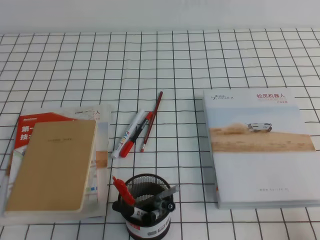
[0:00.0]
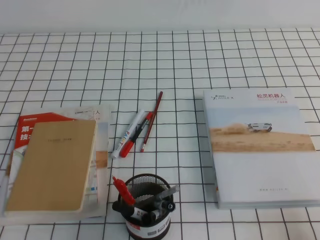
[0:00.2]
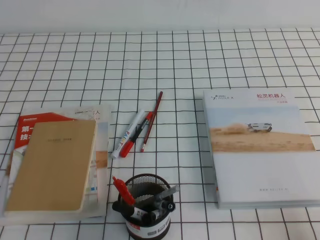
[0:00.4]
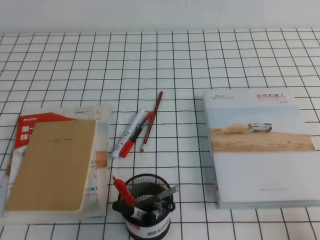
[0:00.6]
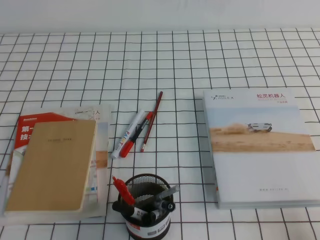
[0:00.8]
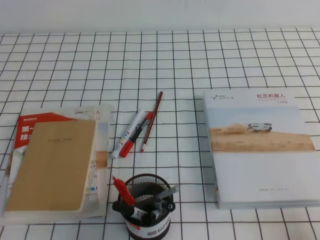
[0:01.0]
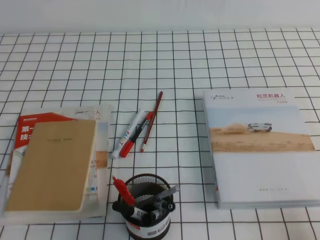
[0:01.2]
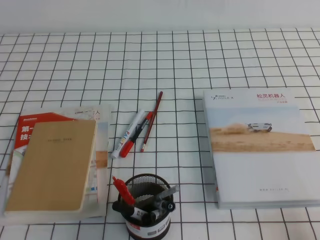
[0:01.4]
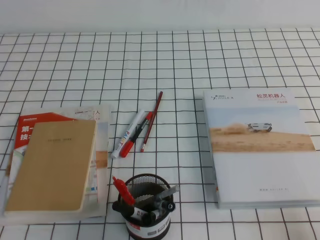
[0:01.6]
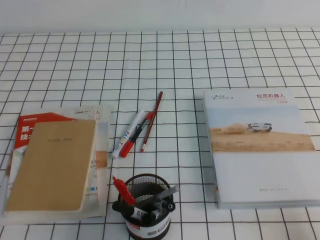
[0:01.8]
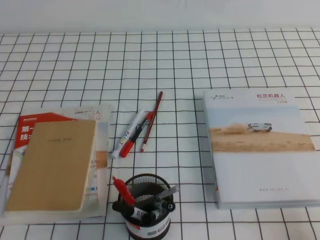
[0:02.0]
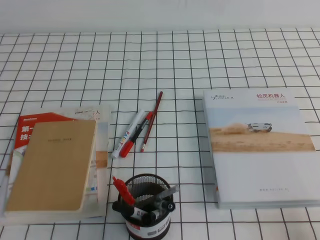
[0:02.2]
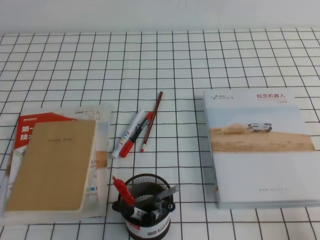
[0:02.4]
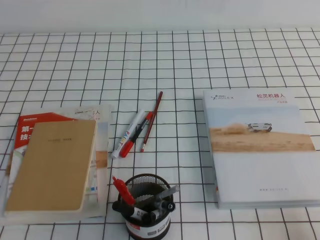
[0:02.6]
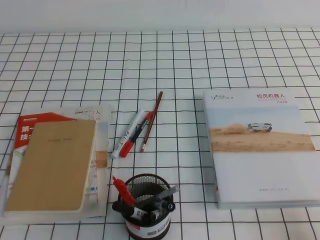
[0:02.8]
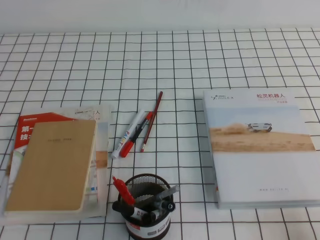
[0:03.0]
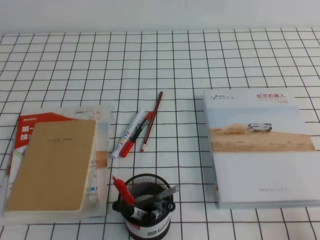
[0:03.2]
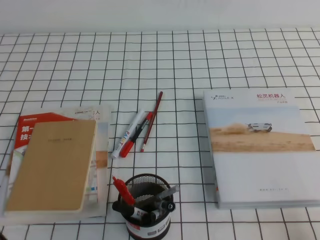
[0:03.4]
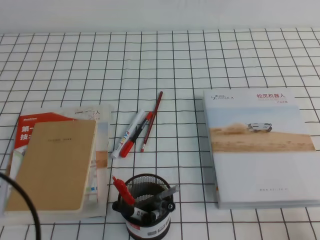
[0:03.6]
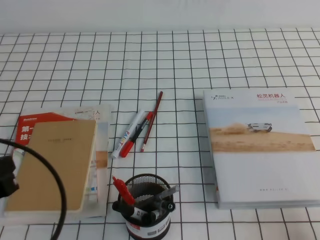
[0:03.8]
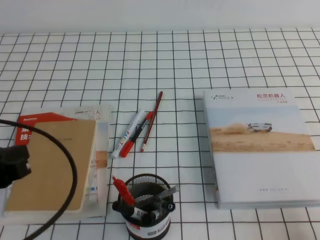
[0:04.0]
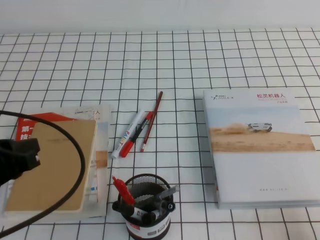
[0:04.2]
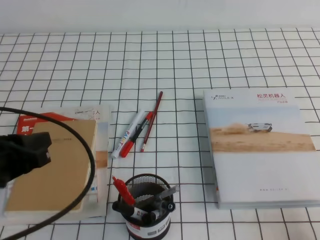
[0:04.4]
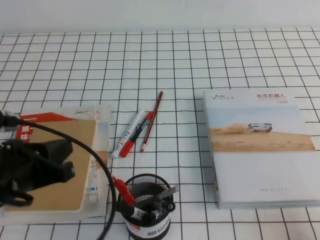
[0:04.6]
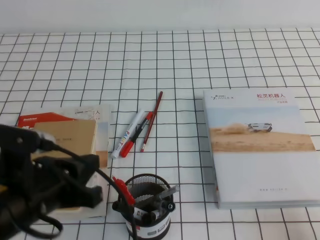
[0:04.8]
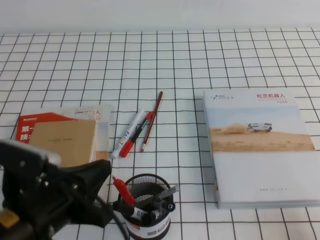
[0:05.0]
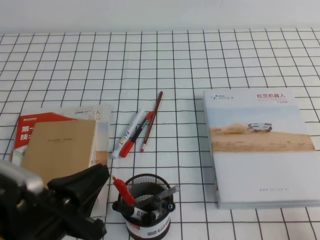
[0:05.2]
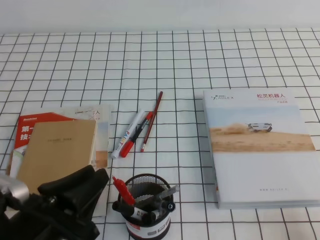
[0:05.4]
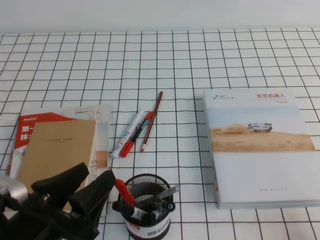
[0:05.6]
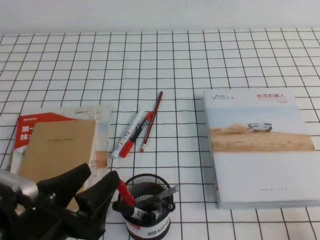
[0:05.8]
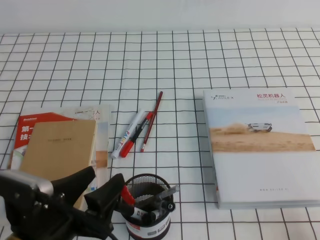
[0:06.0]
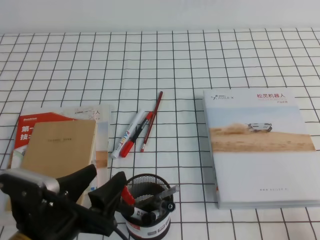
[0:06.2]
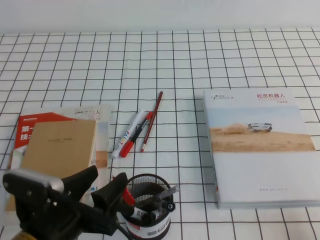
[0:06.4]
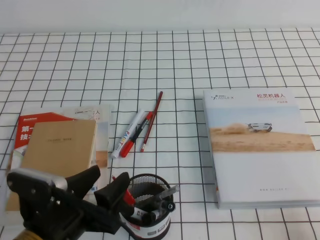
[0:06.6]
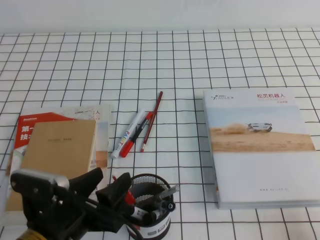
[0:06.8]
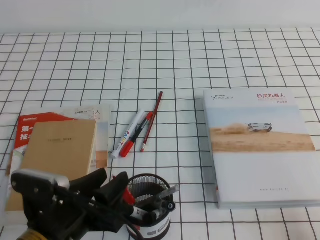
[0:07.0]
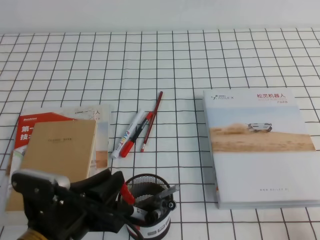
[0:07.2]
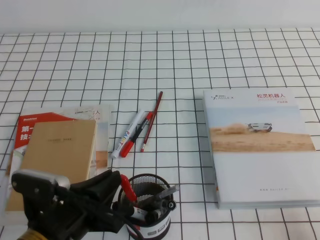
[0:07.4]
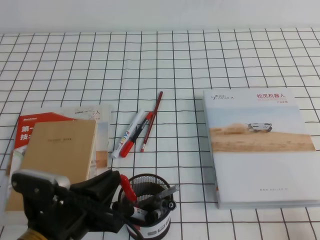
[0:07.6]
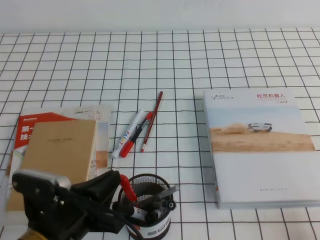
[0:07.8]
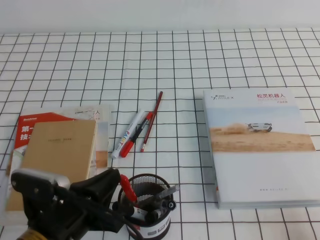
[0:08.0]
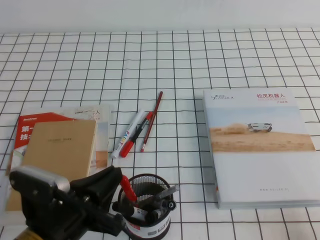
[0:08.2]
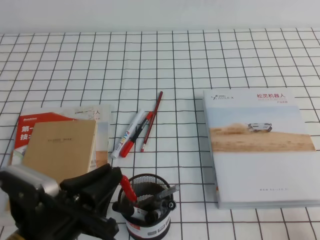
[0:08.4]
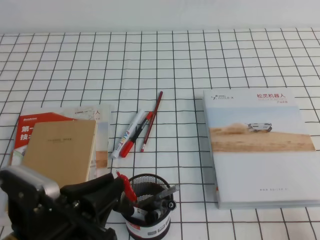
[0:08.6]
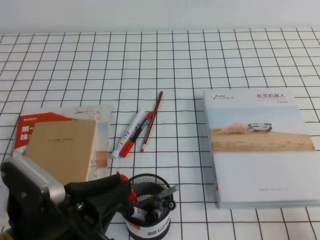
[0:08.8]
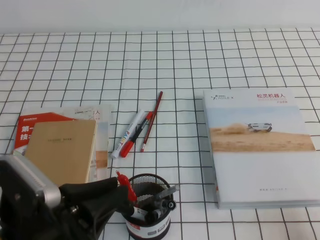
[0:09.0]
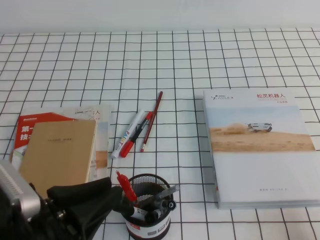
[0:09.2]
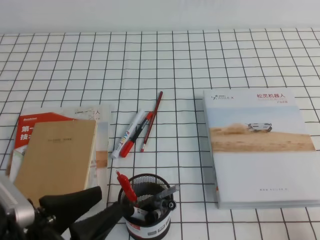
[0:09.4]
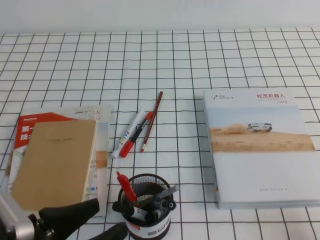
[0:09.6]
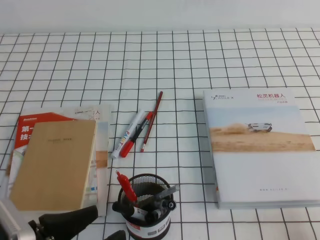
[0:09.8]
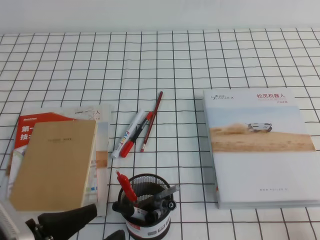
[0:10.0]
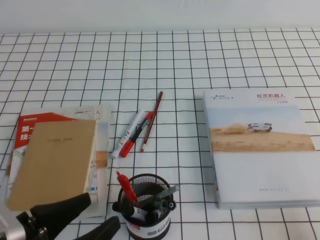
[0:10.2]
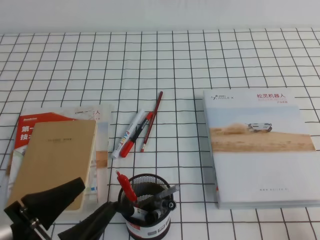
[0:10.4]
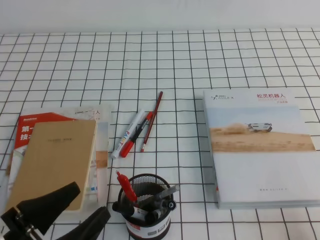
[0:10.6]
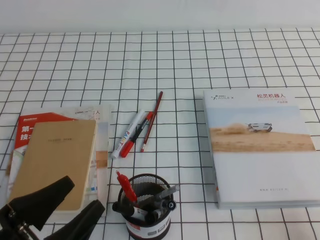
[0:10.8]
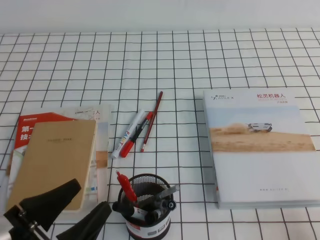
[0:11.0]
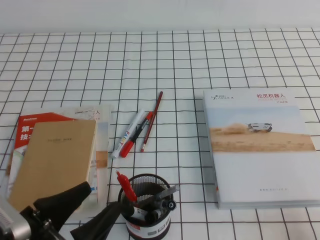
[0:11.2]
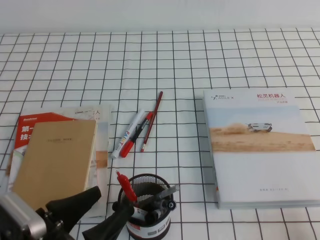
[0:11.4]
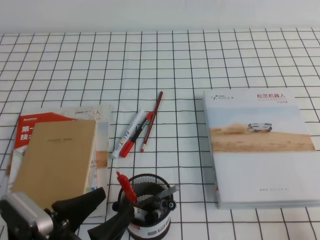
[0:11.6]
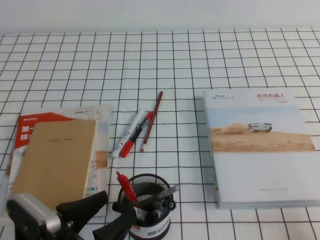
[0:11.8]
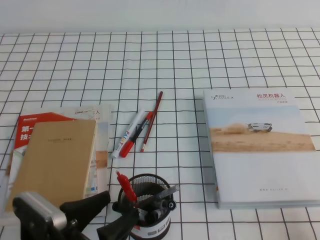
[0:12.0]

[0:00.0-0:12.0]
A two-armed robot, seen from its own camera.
0:00.0 to 0:01.6: Both grippers stay about where they are.
0:03.0 to 0:04.4: The left gripper is displaced forward and upward by some 15 cm.
0:04.4 to 0:06.0: The left gripper travels to the right, downward and backward by some 10 cm, and opens its fingers.
0:06.0 to 0:07.6: The left gripper closes.
0:07.6 to 0:09.0: The left gripper goes roughly 5 cm upward.
0:09.0 to 0:10.4: The left gripper opens its fingers.
0:10.4 to 0:12.0: The left gripper ends up about 5 cm from where it was.

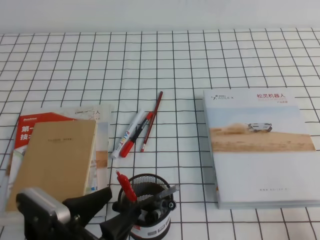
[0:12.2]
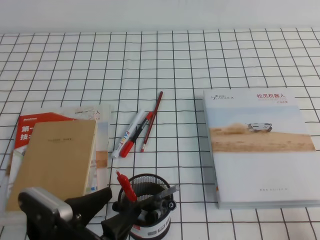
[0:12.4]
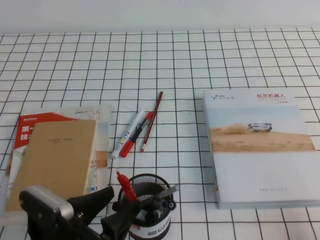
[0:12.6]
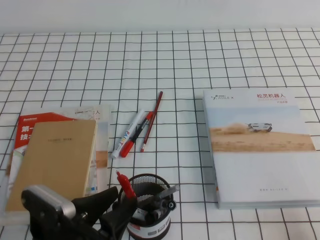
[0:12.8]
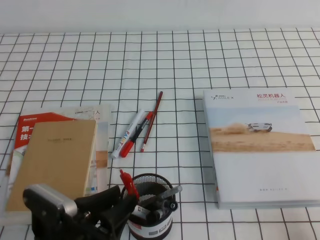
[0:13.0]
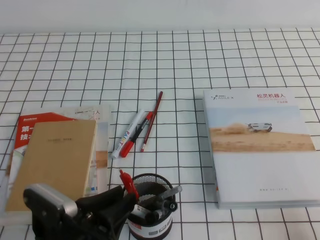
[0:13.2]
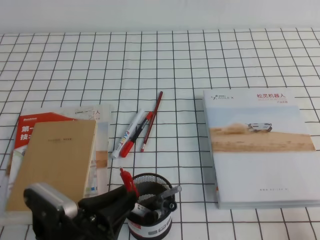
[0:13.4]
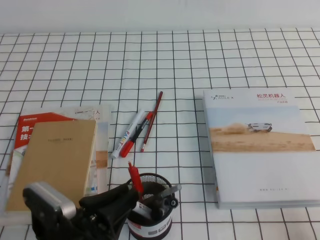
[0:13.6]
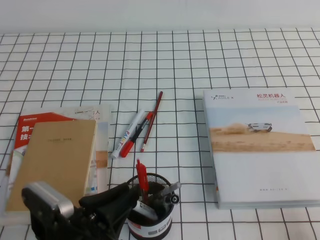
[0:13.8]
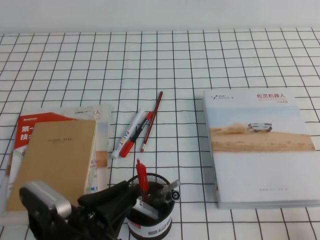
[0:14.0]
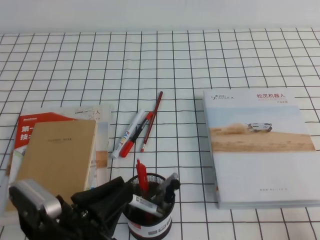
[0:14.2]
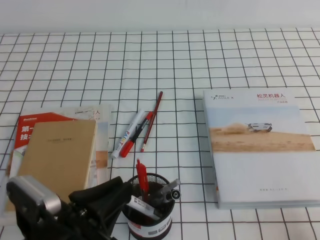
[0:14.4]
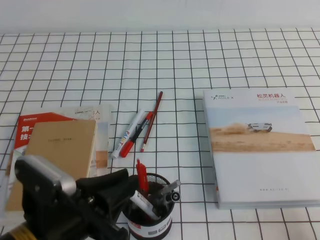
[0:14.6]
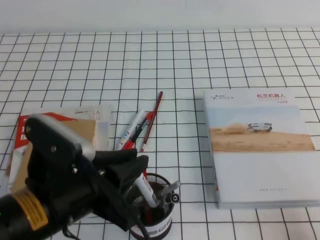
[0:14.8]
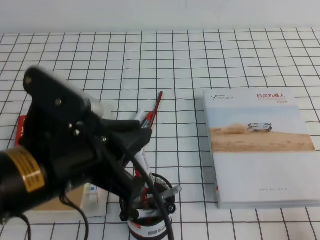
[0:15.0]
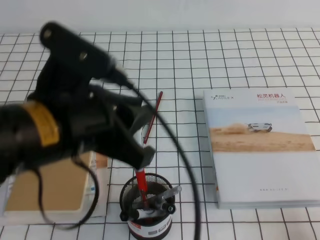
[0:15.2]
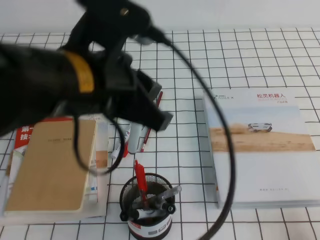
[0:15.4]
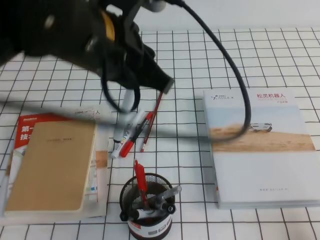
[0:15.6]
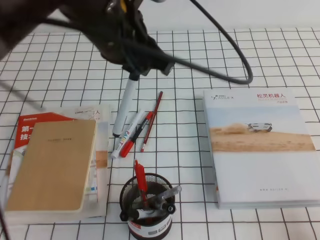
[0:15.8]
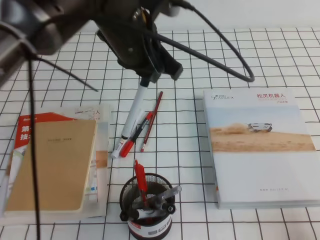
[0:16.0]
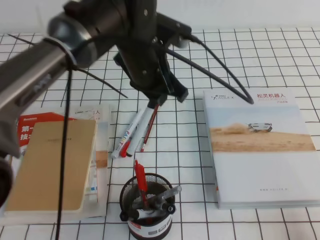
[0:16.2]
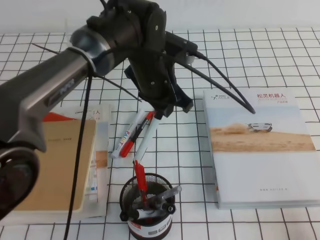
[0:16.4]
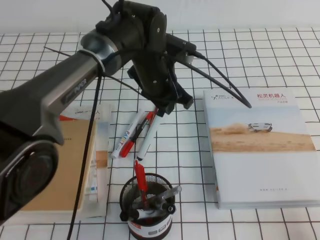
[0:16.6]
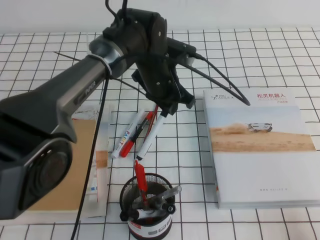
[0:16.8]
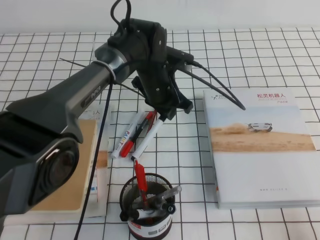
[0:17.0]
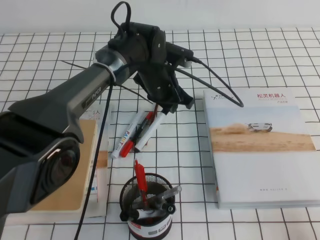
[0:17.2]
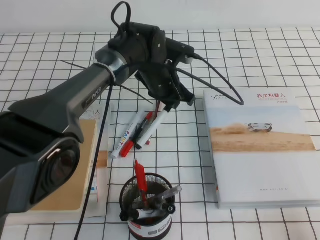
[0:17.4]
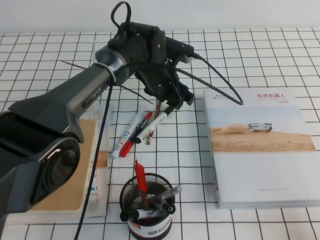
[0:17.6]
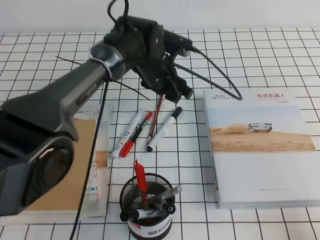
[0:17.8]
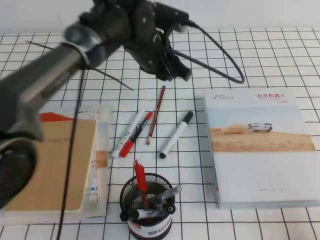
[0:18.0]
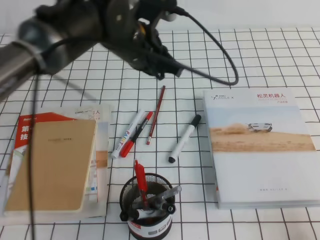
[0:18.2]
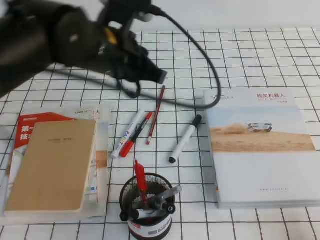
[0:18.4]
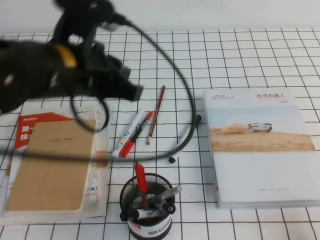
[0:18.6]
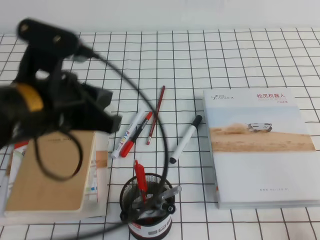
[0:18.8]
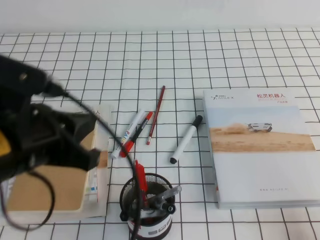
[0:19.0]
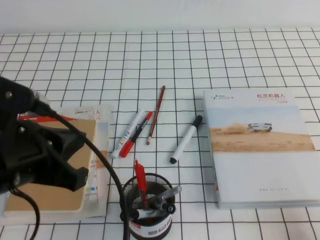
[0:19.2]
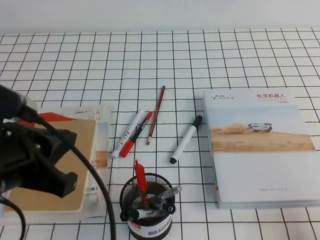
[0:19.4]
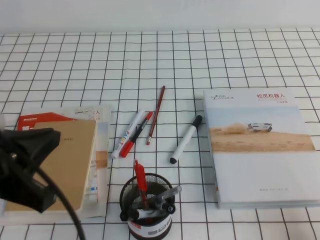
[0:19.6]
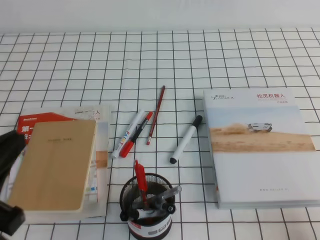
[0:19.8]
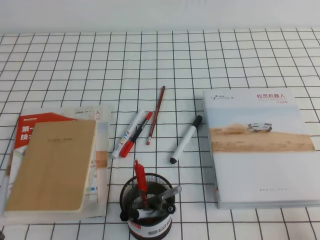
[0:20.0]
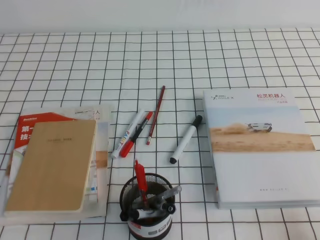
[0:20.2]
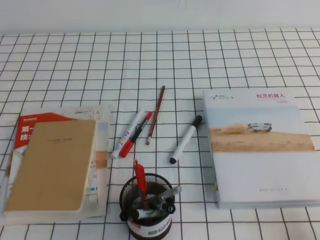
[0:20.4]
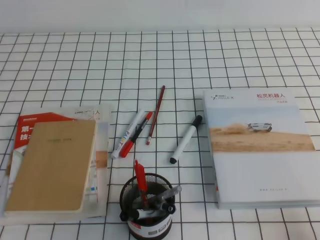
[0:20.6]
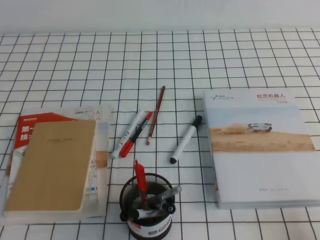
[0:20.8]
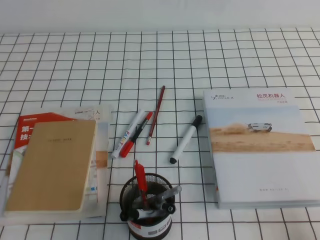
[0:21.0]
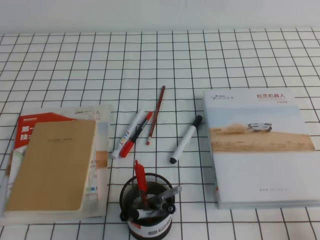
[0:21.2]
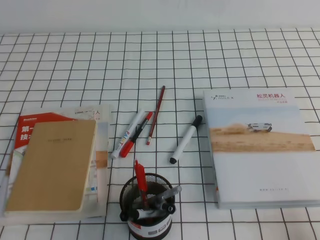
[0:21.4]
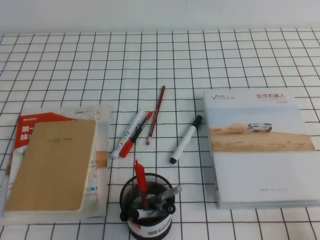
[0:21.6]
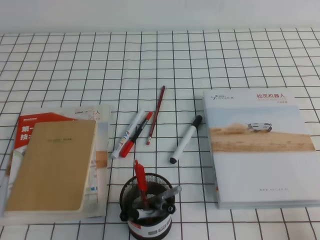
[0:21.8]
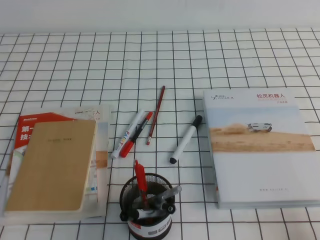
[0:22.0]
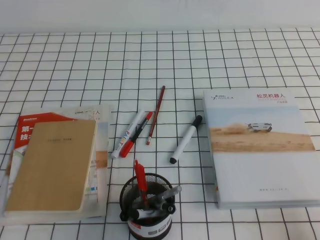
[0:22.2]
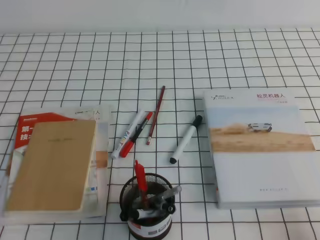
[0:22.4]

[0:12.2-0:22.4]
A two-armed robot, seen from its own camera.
Step, 0:12.2 to 0:22.4: Pick up the pen from the pen holder.
0:12.2 to 0:13.6: The left gripper closes its fingers.
0:13.6 to 0:15.2: The left gripper shifts roughly 20 cm upward.
0:15.2 to 0:16.6: The left gripper goes approximately 25 cm forward, to the right and downward.
0:18.0 to 0:19.4: The left gripper is displaced backward and to the left by roughly 30 cm.
0:19.4 to 0:21.0: The left gripper heads downward, to the left and backward, covering about 20 cm.
0:21.0 to 0:22.4: Neither gripper changes place.
